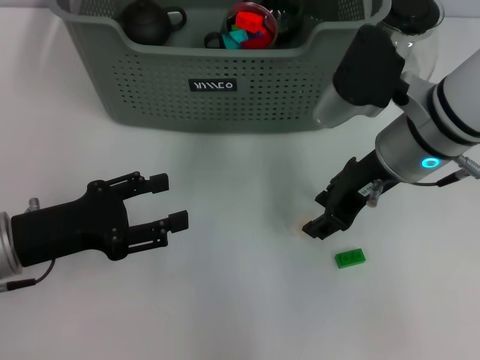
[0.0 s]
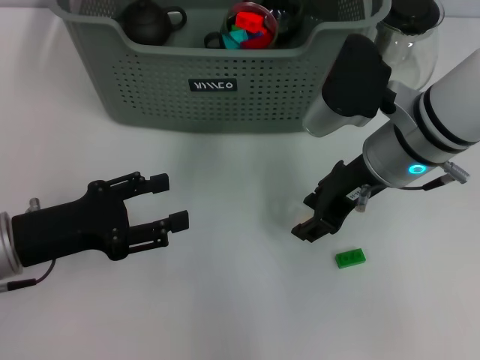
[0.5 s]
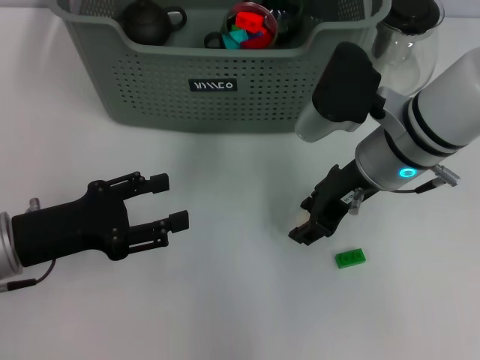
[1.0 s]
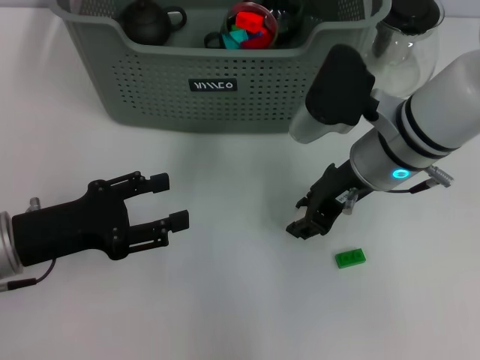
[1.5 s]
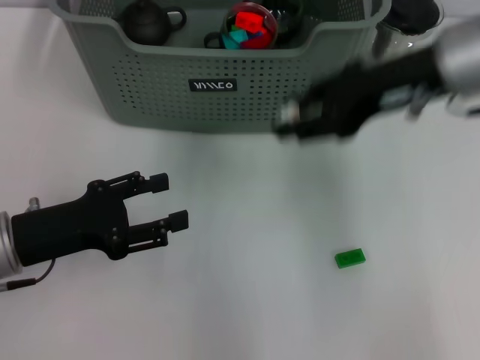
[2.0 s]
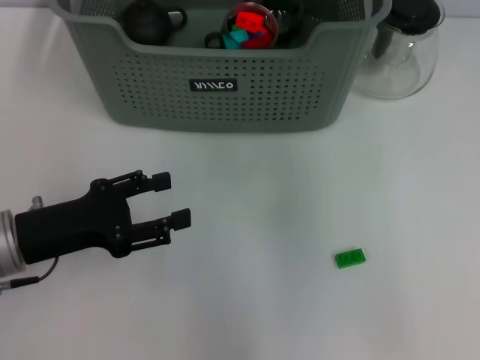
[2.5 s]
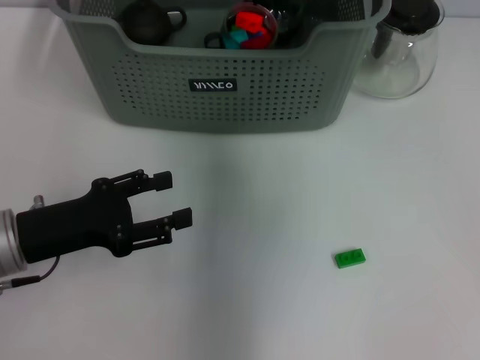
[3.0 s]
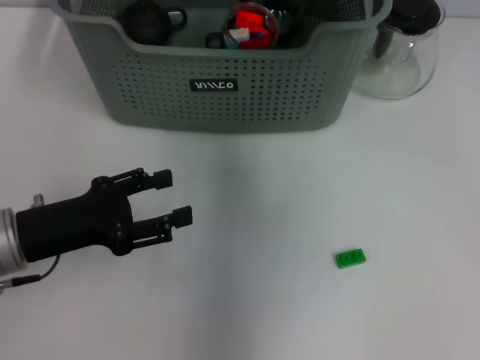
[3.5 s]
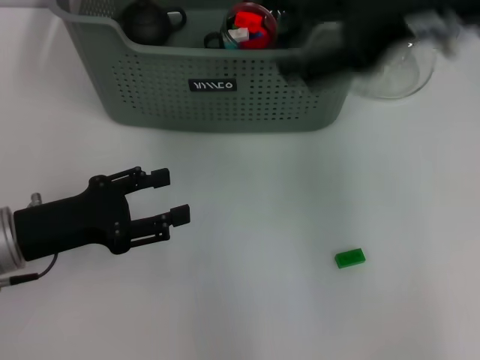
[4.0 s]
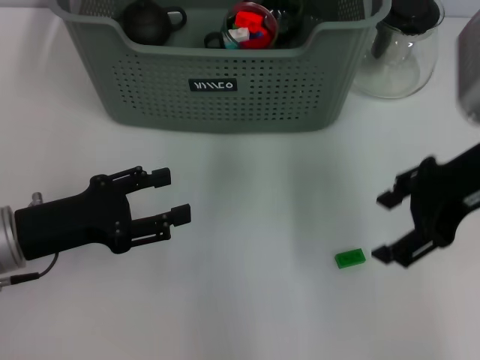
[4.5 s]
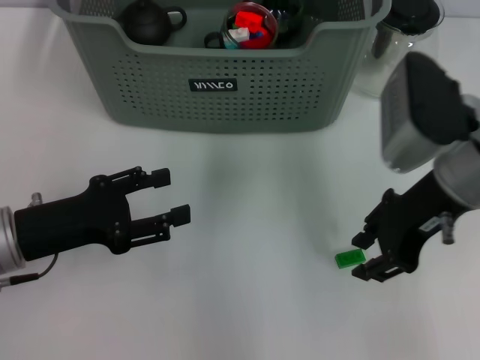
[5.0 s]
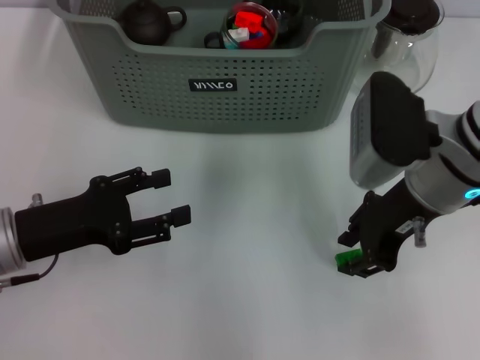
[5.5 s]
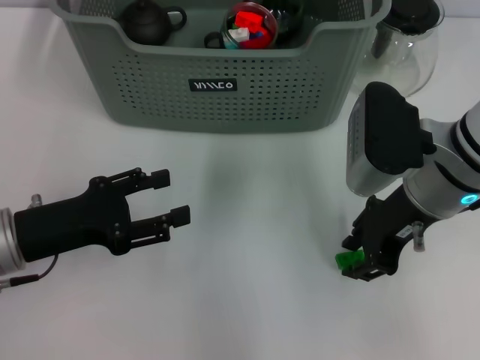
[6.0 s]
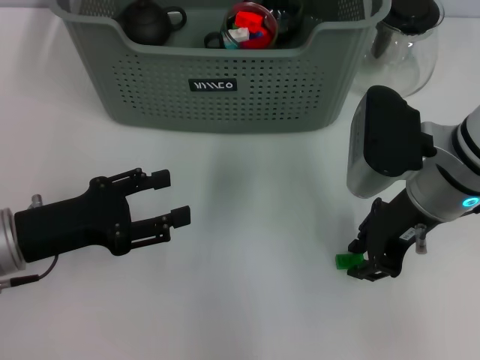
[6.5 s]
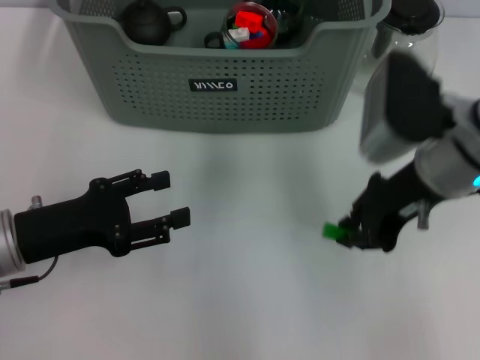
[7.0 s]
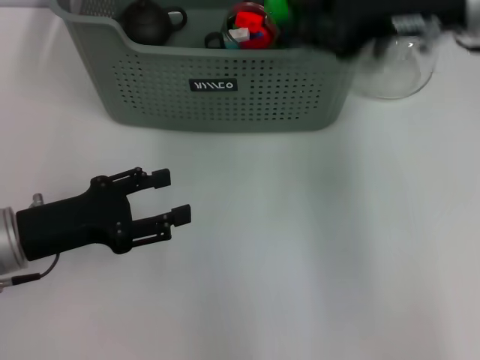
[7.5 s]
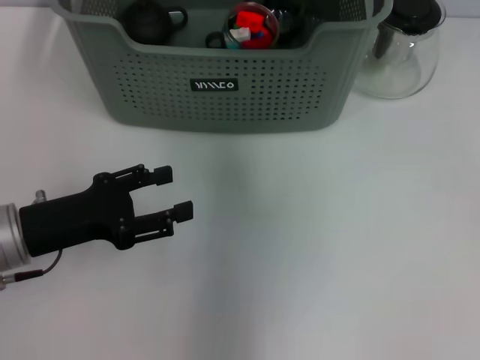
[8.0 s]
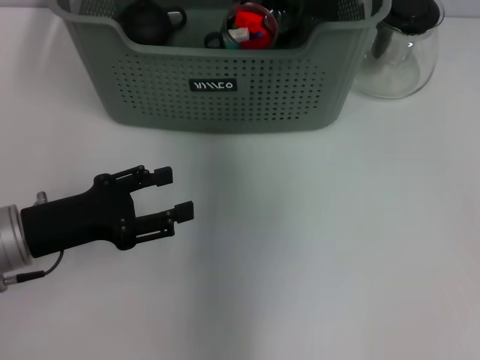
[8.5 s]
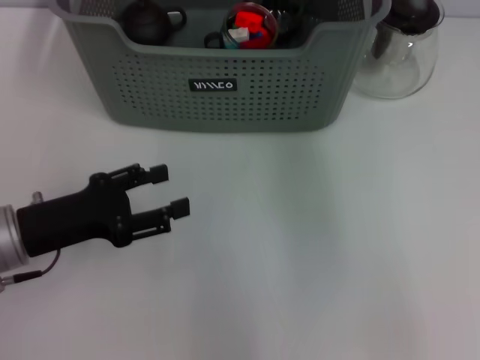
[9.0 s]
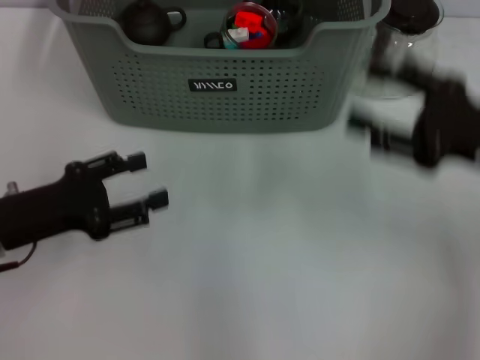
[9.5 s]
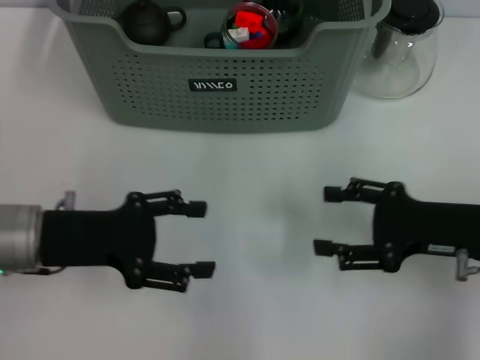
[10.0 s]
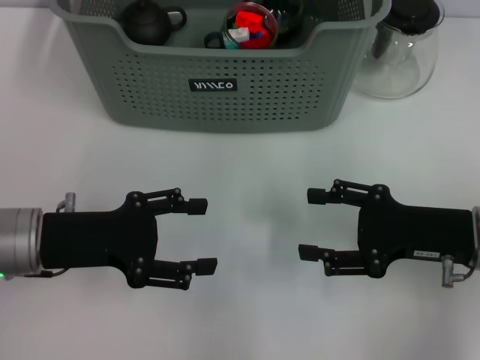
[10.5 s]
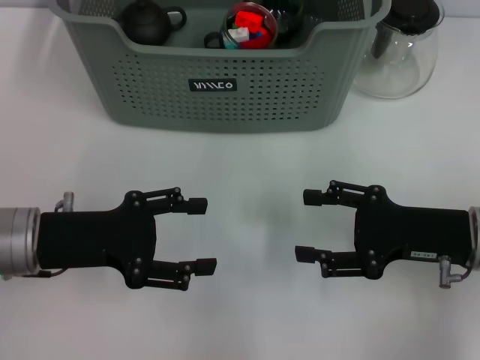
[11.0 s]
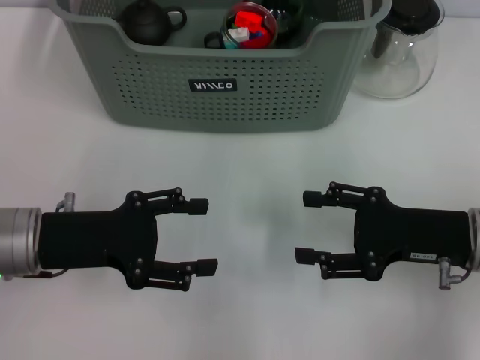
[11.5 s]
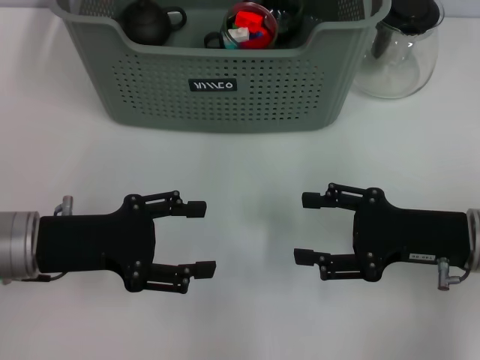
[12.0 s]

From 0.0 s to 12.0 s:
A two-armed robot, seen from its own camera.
Task of the whole recording: pick up the teacup on the table and place it into the storage bin, pick up the block on the table and place it into the storage bin.
Step, from 2.0 s to 3.5 s: Place the white block in the storage box with right gripper.
Step, from 4.5 s to 6.5 s: Grasp the green block with right gripper.
Step, from 7.0 s to 9.0 s: Place the green block in the storage box with right gripper.
From 0.0 s to 2.0 s: The right gripper travels upward by approximately 10 cm.
From 2.0 s to 4.0 s: The right gripper travels forward and back again, about 15 cm each way, and opens up.
From 4.0 s to 6.0 s: The right gripper shifts roughly 15 cm downward, and closes its fingers.
From 6.0 s to 8.0 s: The right gripper shifts some 20 cm forward, upward and to the left.
From 8.0 s to 10.0 s: The right gripper shifts approximately 30 cm backward, to the right and downward, and opens its fingers.
From 10.0 s to 12.0 s: The grippers make only small movements.

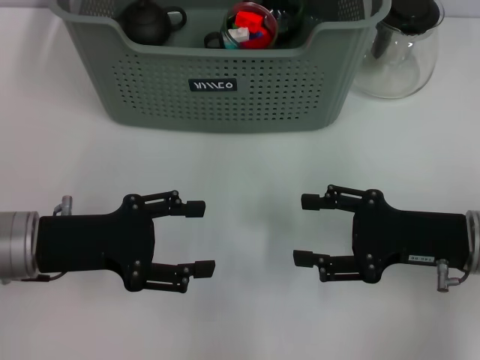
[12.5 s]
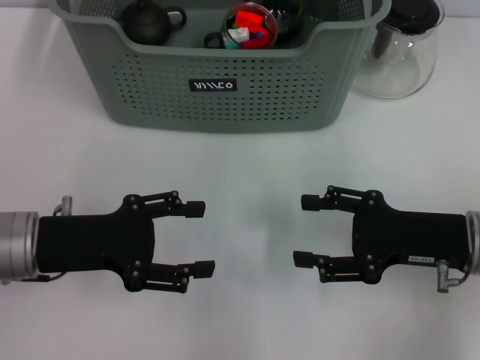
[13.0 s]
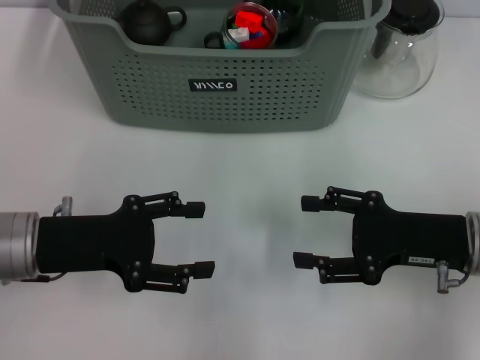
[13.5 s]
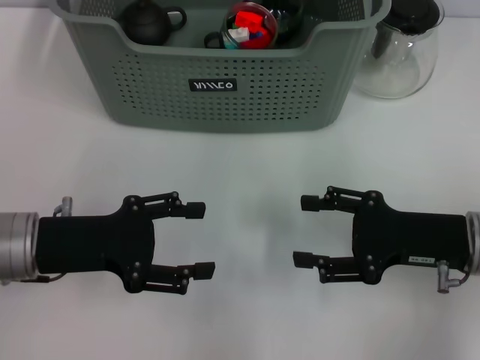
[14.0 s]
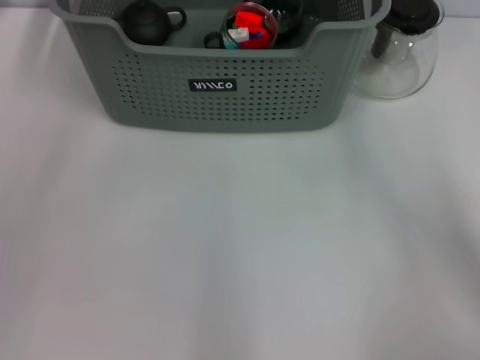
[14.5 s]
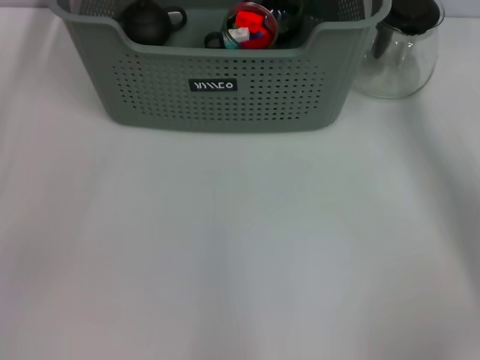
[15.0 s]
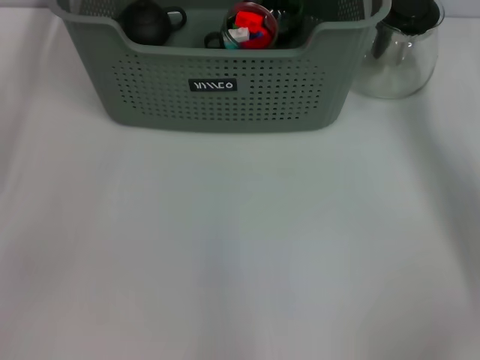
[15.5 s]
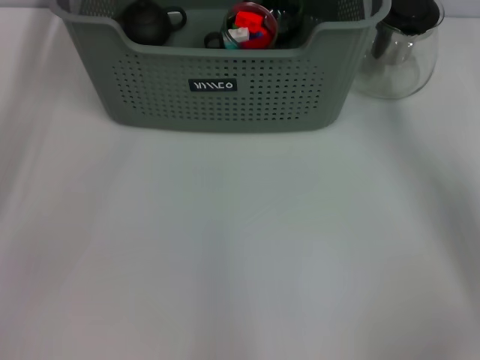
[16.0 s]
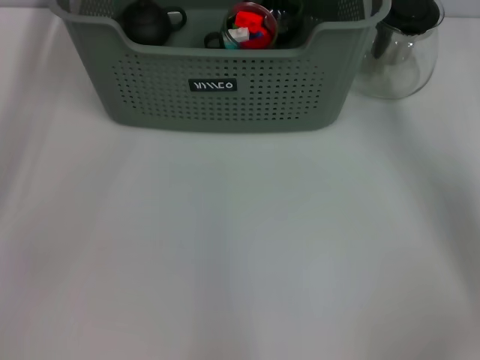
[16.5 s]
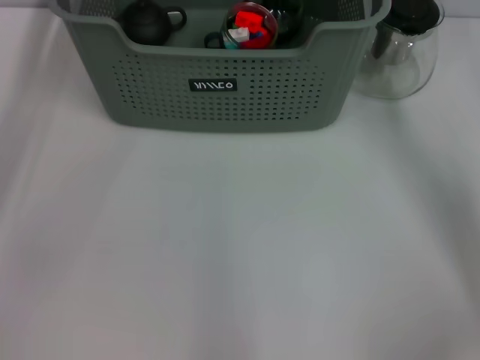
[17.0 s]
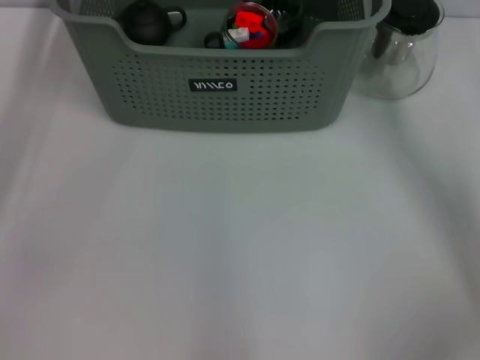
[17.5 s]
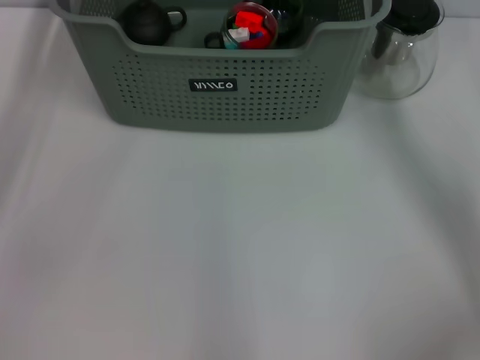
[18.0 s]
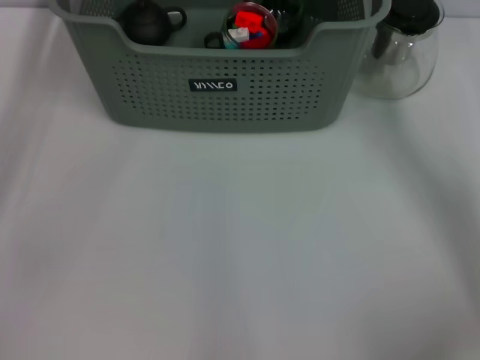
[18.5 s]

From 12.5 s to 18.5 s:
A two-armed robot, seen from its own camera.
Task of the whole recording: pick up the teacup on the table and place it into the storage bin, pick up the block on the table and place it into the storage bin.
From 12.5 s to 14.5 s: The left gripper goes approximately 10 cm to the left and upward; the right gripper goes roughly 5 cm to the right.
From 14.5 s to 16.5 s: The left gripper shifts some 5 cm forward.
From 16.5 s to 18.5 s: Neither gripper changes place.
